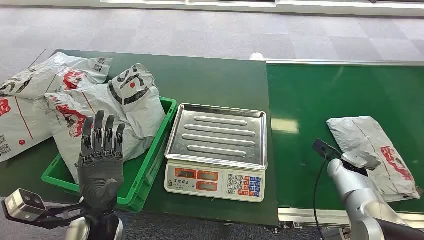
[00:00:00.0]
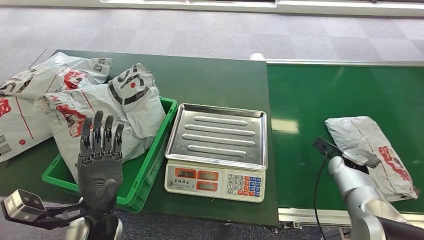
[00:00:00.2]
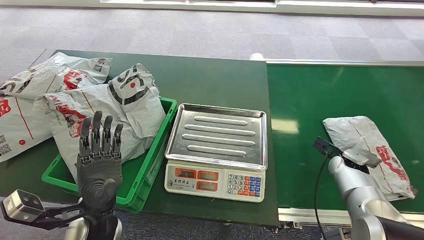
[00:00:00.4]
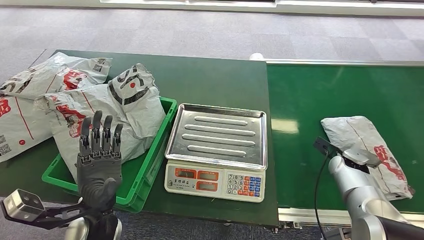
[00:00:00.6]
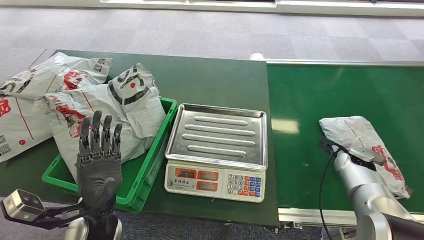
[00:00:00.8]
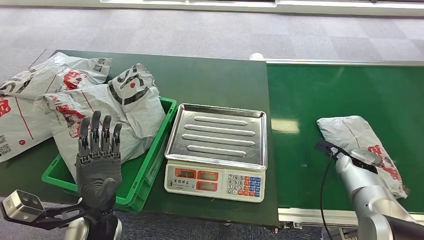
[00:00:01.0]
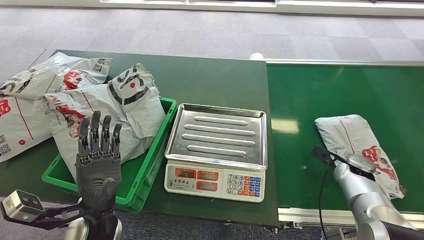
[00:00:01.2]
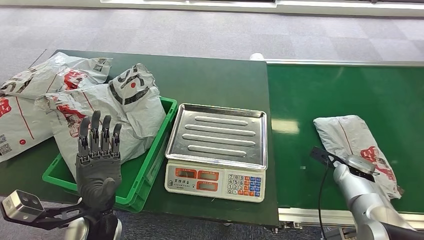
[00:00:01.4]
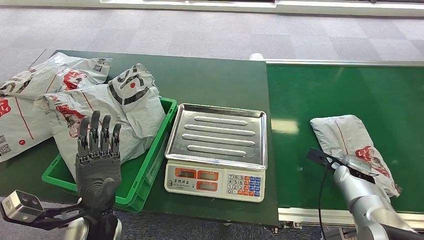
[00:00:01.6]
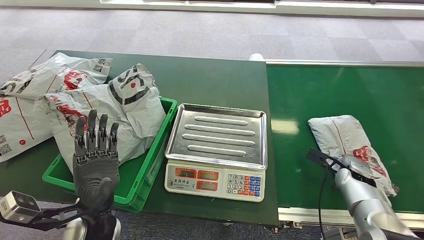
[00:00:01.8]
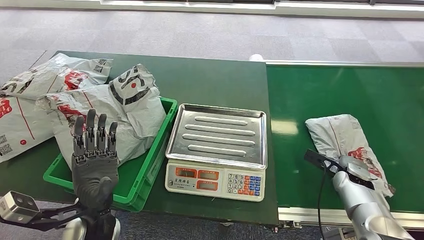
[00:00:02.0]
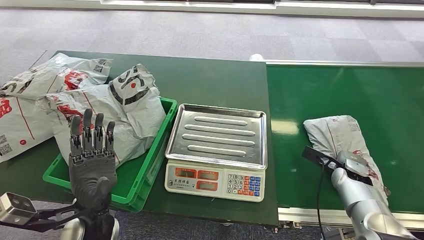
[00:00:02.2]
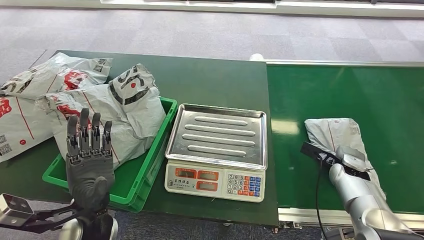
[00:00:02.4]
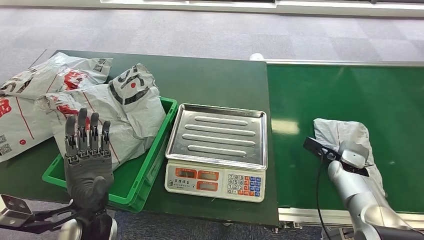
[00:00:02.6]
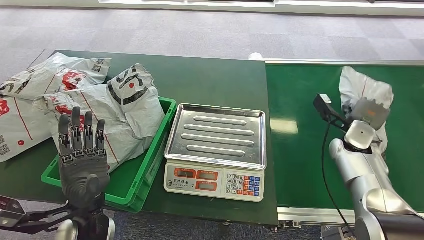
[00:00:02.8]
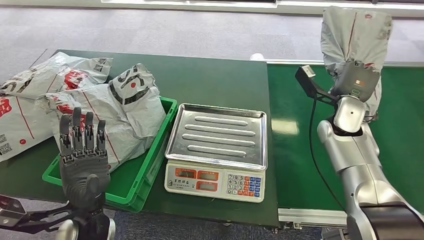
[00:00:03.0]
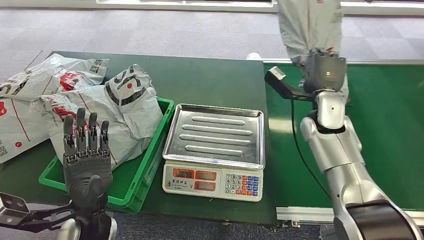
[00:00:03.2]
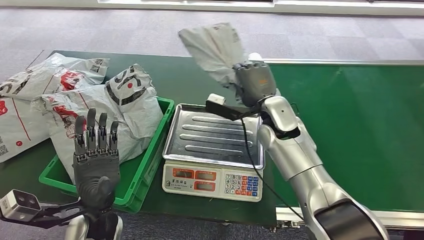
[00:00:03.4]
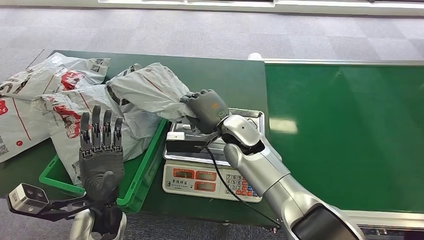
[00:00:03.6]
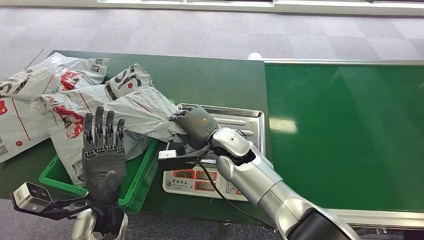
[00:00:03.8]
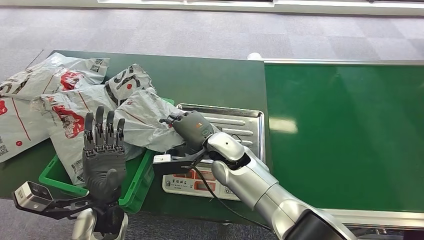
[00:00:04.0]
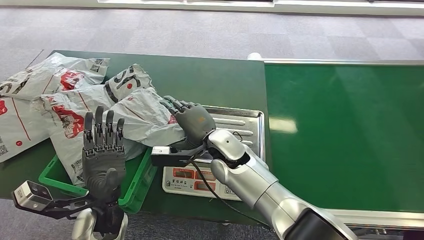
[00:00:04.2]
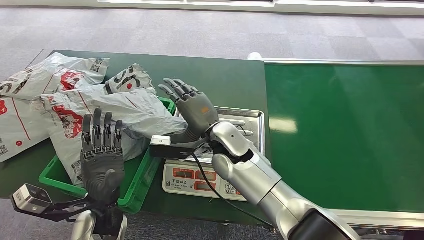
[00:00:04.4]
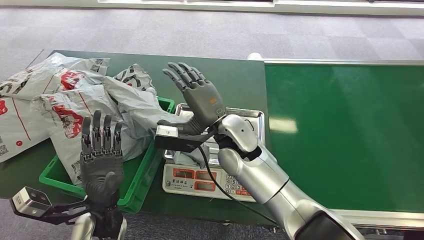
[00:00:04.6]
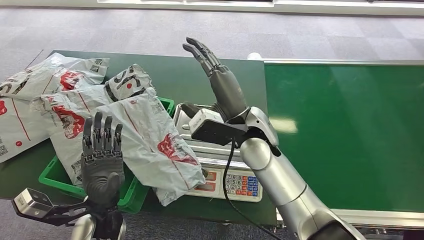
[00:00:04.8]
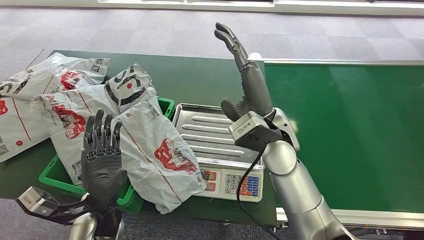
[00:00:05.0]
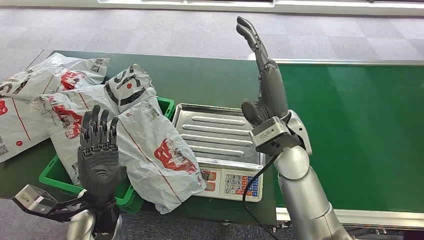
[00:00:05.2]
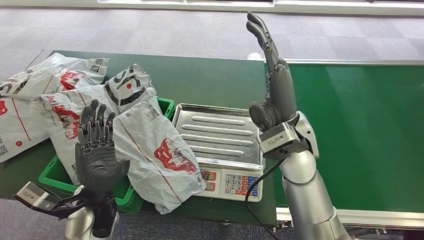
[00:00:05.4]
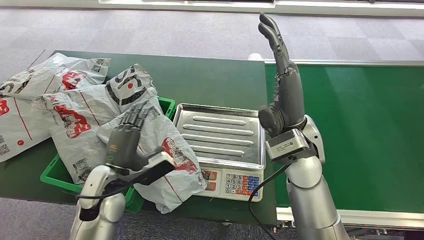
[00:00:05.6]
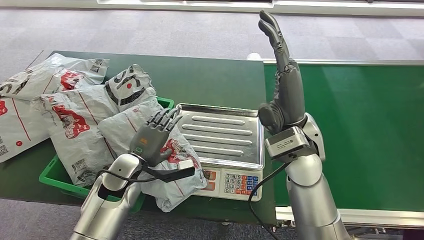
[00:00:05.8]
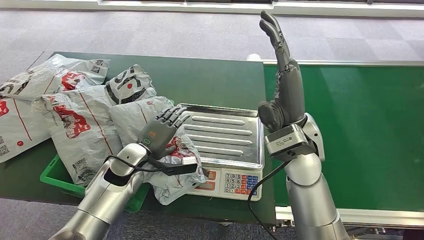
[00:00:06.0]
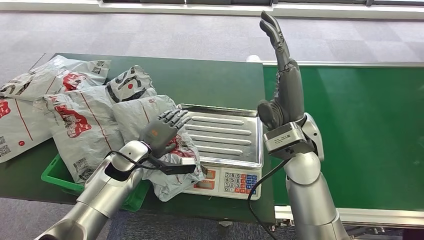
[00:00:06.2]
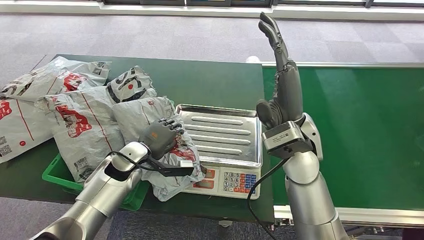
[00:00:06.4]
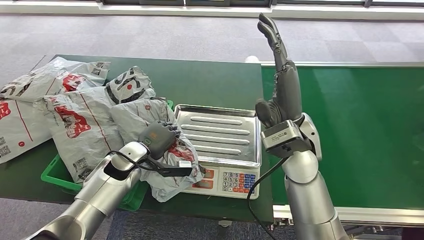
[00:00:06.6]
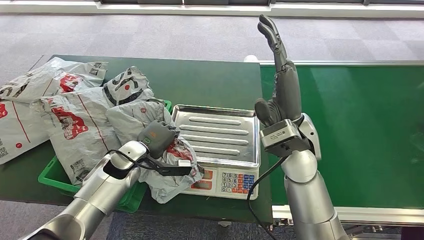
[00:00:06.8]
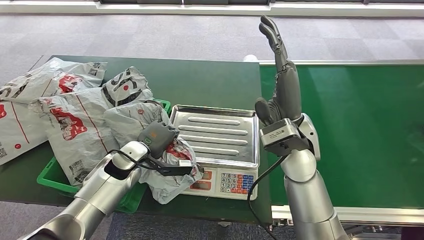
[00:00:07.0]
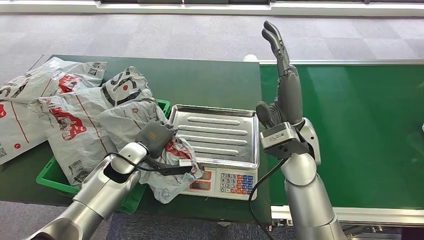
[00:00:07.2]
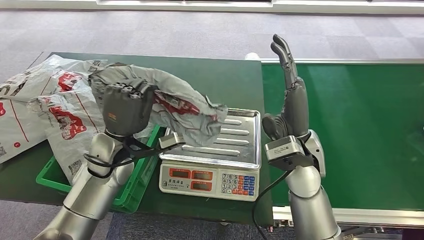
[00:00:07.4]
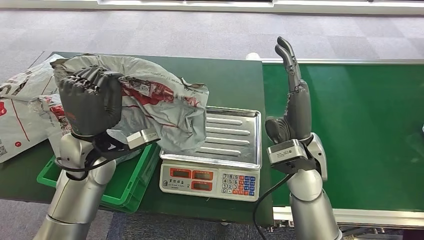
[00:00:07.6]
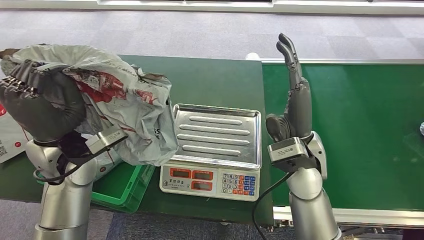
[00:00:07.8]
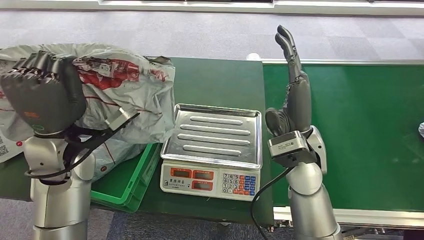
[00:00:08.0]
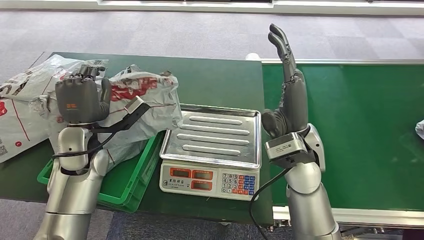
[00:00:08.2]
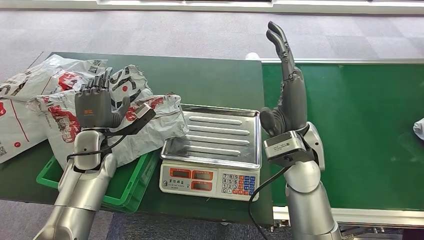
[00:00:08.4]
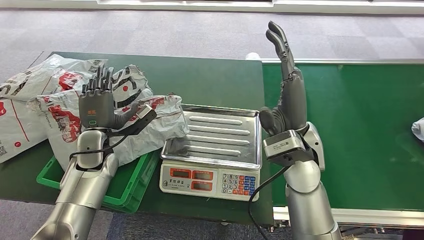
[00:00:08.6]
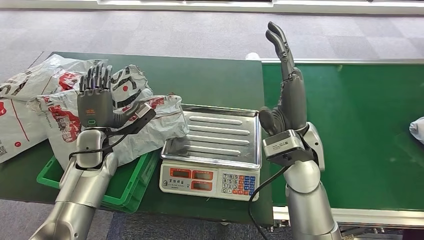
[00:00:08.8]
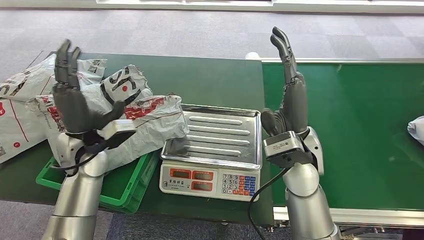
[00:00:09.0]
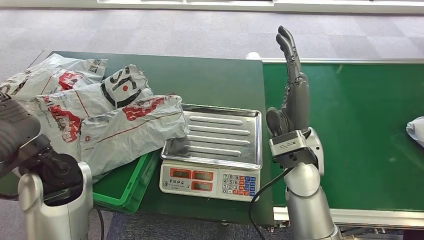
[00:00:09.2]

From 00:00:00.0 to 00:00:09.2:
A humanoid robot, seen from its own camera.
Step, from 00:00:00.0 to 00:00:02.8: Pick up the package from the conveyor belt.
Step, from 00:00:03.0 to 00:00:06.0: Place the package onto the inbound machine.
Step, from 00:00:06.4 to 00:00:07.8: Pick up the package from the inbound machine.
Step, from 00:00:08.0 to 00:00:09.2: Place the package into the parcel locker.
From 00:00:01.6 to 00:00:03.0: The right hand moves upward, forward and to the left, about 20 cm.
